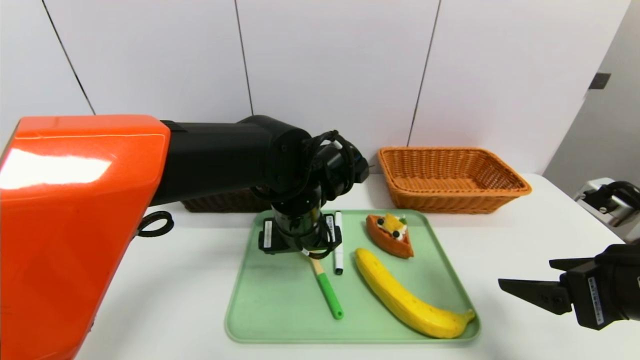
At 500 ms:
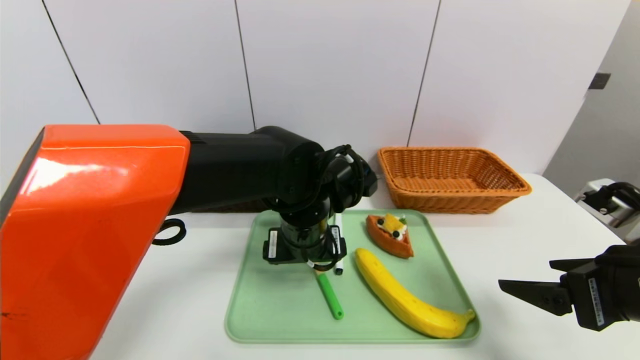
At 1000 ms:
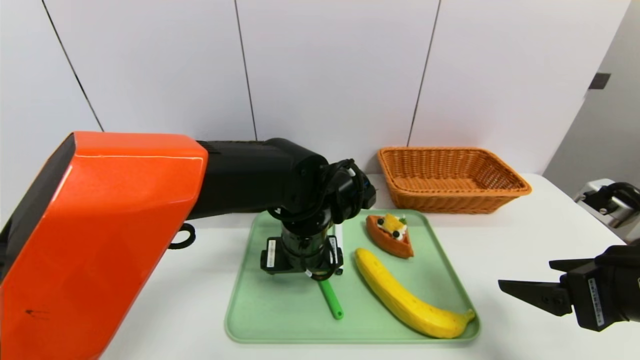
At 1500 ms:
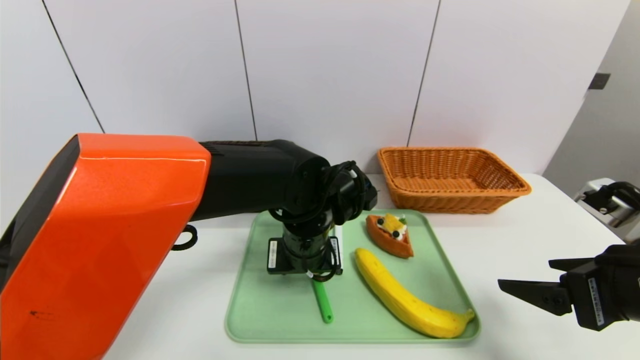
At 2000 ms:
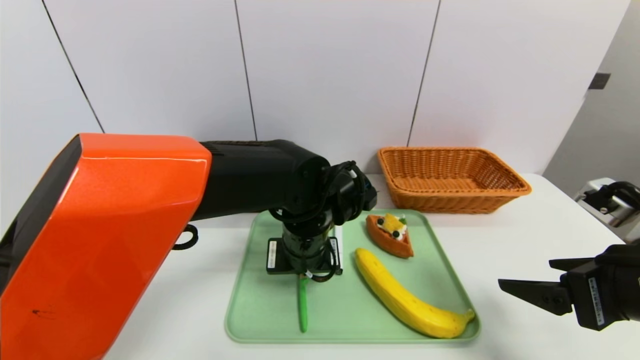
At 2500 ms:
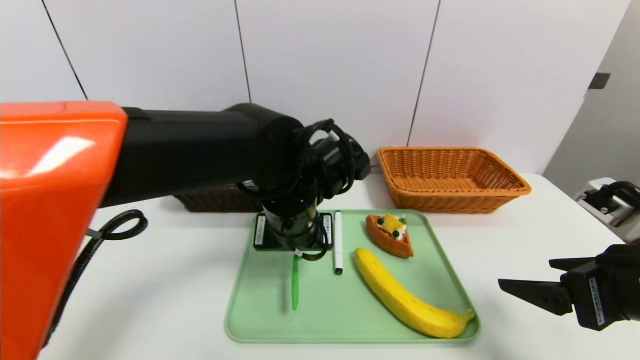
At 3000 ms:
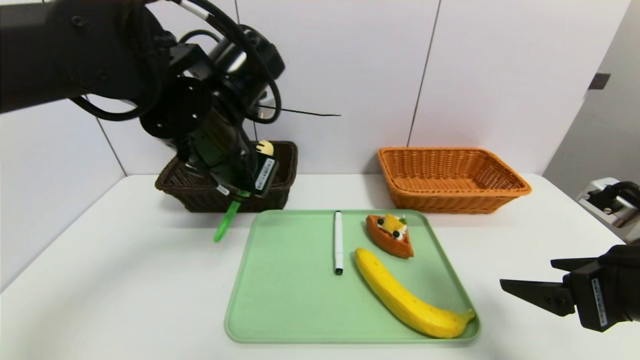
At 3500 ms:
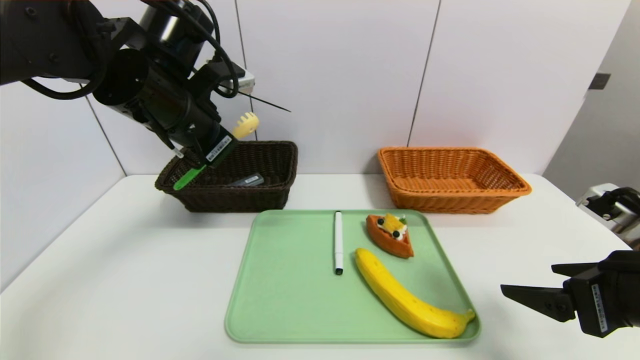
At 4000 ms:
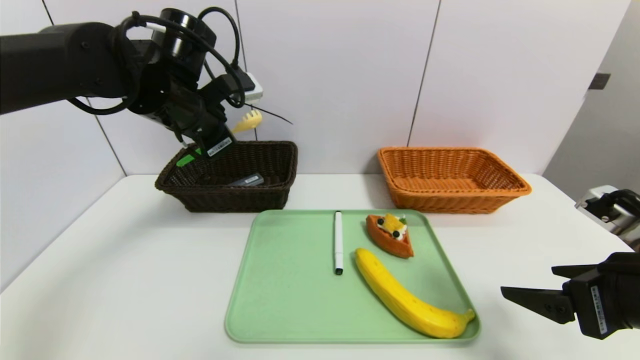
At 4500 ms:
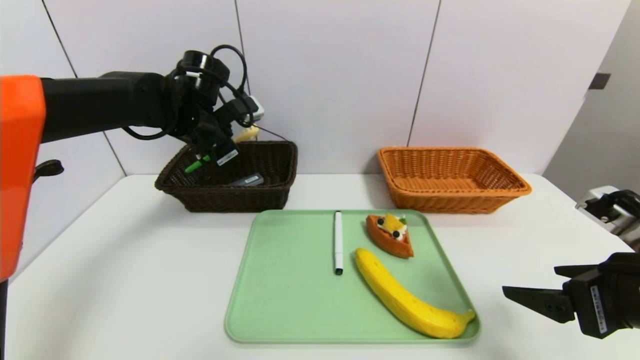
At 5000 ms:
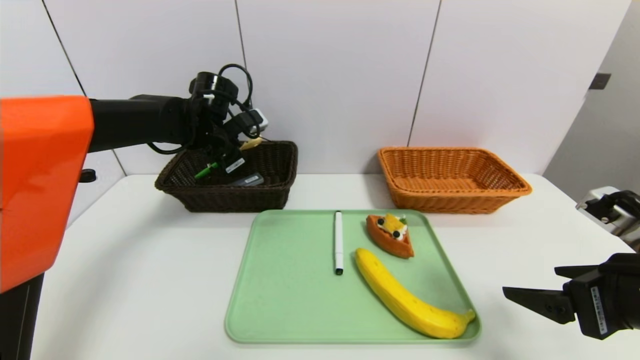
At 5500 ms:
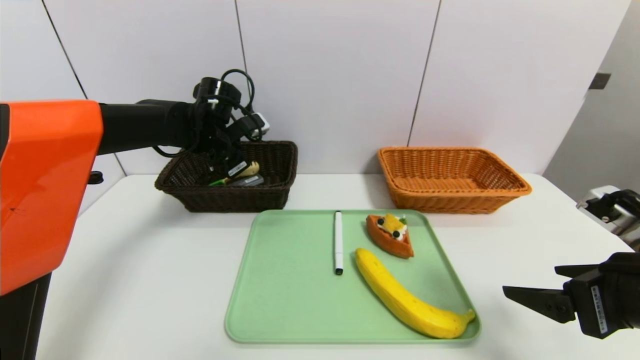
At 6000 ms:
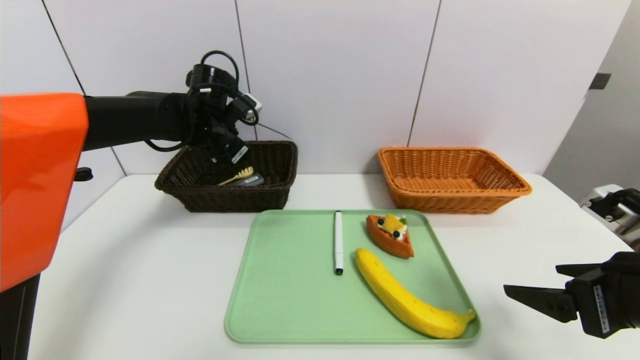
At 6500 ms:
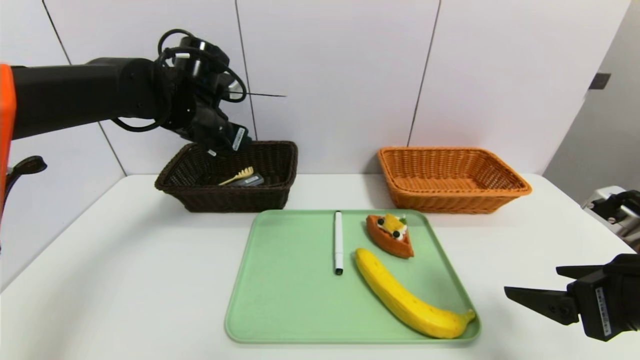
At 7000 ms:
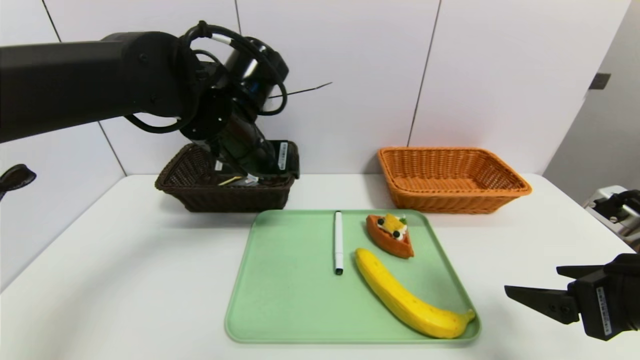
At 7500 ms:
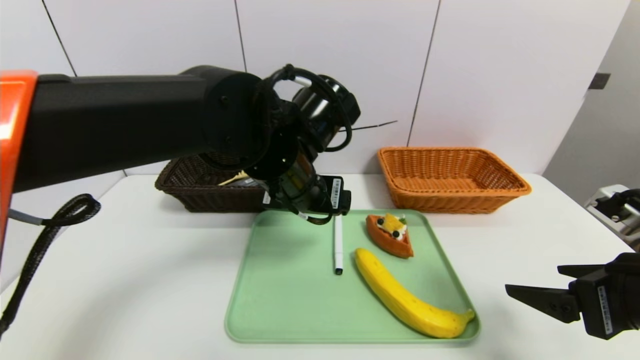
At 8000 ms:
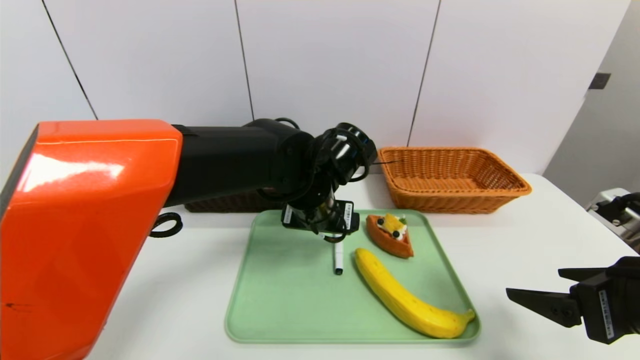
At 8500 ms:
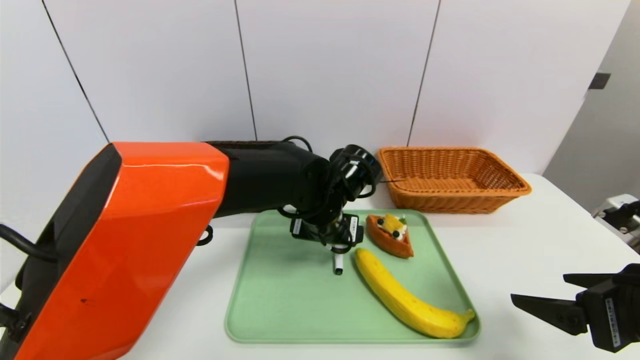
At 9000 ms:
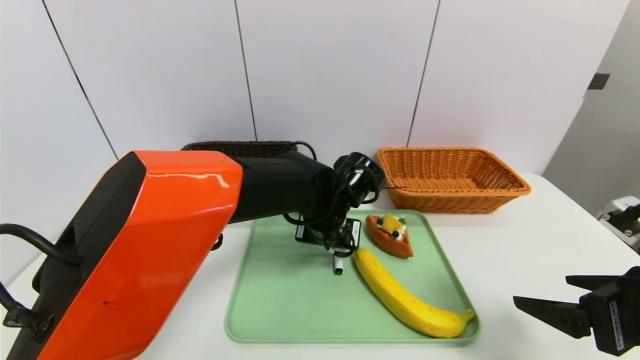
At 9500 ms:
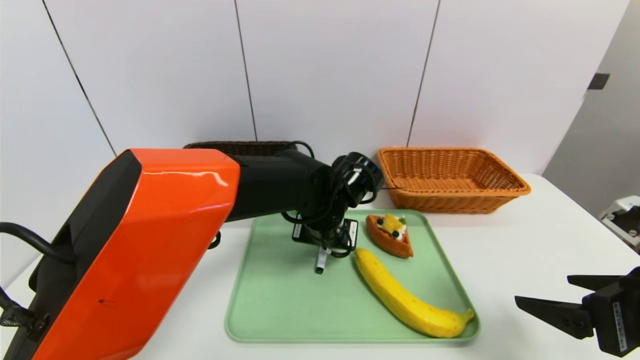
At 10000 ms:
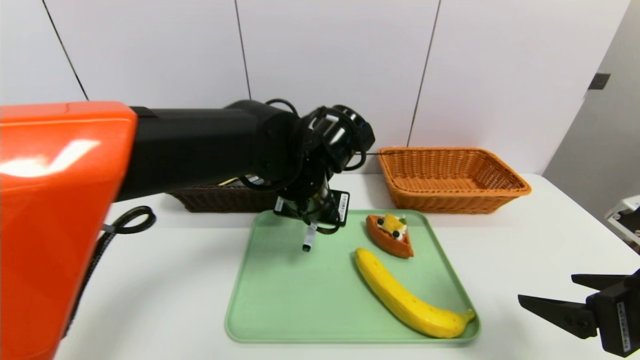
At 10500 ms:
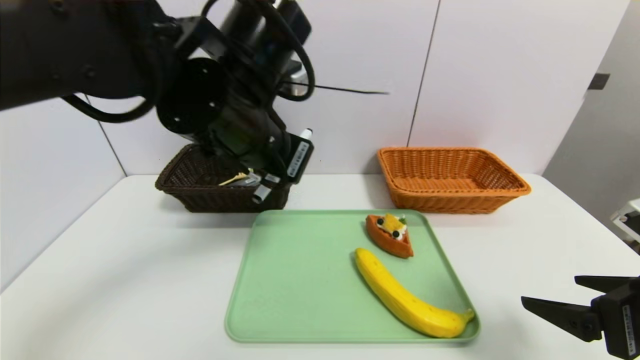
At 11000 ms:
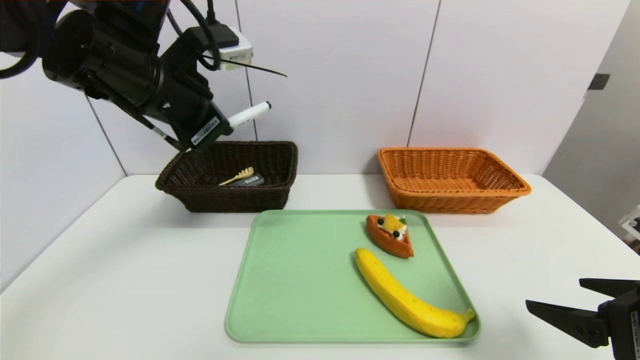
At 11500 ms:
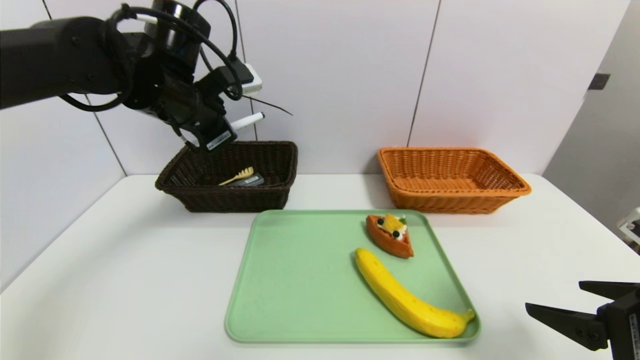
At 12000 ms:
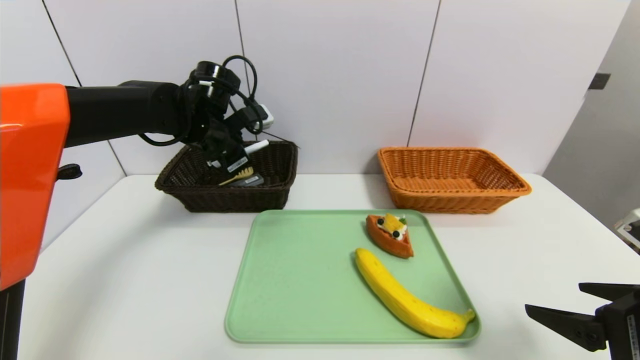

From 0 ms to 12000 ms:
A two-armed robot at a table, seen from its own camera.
Task of the whole recording: place the food in the right basket with the right gripper, and place the non food items in the left basket with the left gripper.
Step, from 0 ms to 6000 ms: Grasp the back scratcher and put it in the left basket.
From 0 ms to 2000 ms: The left gripper closes up.
From 2000 ms to 4000 ms: The left gripper heads to the left, upward and forward, covering some 25 cm.
From 4000 ms to 6000 ms: The left gripper goes some 10 cm forward and downward, and opens.
From 6000 ms to 8000 ms: The left gripper shifts roughly 20 cm to the right and backward.
From 8000 ms to 10000 ms: The left gripper closes its fingers.
From 10000 ms to 12000 ms: The left gripper shifts about 20 cm to the left and forward.

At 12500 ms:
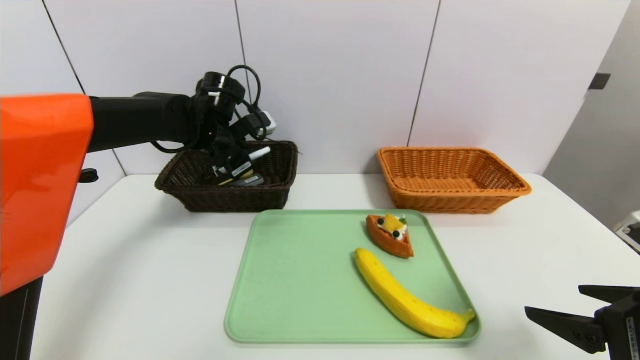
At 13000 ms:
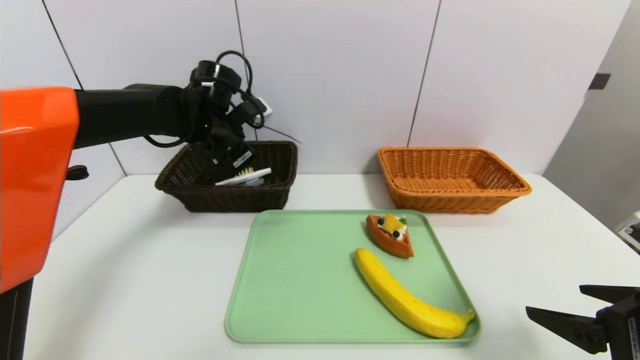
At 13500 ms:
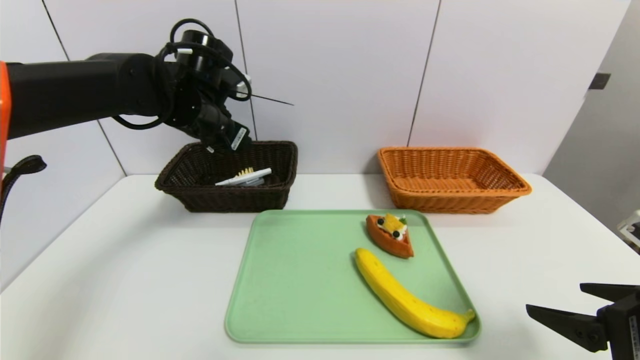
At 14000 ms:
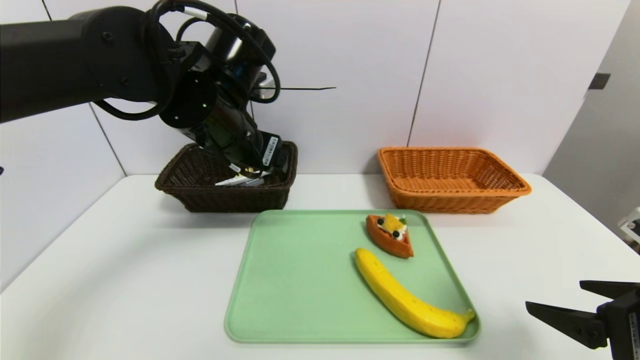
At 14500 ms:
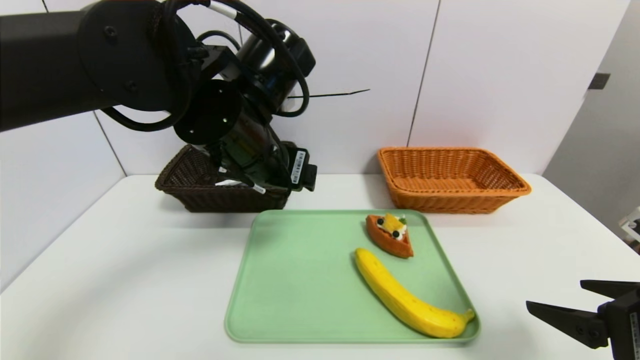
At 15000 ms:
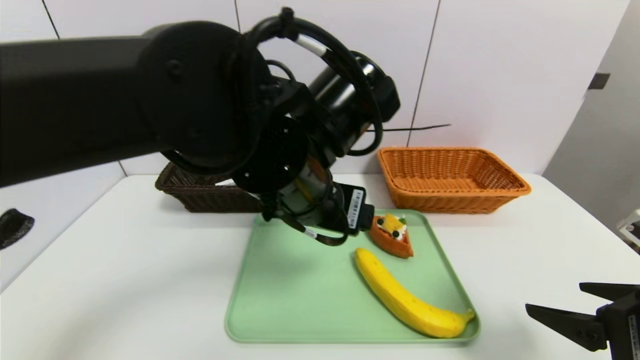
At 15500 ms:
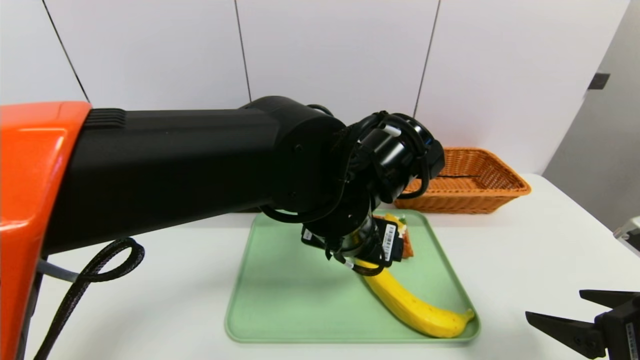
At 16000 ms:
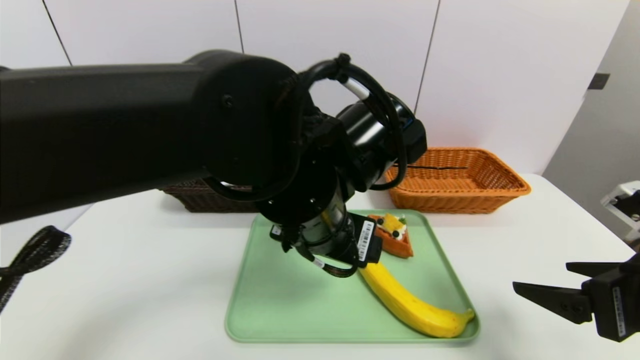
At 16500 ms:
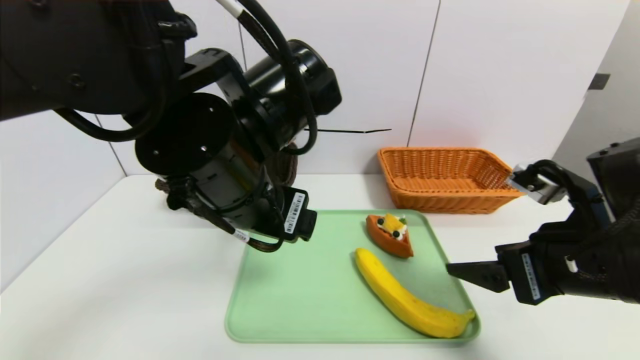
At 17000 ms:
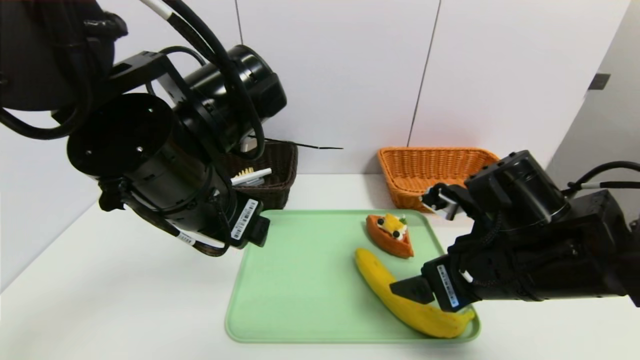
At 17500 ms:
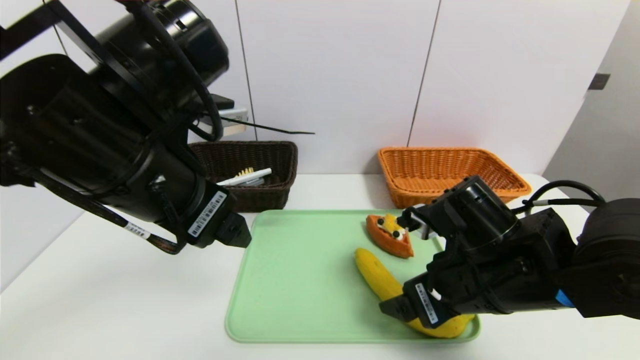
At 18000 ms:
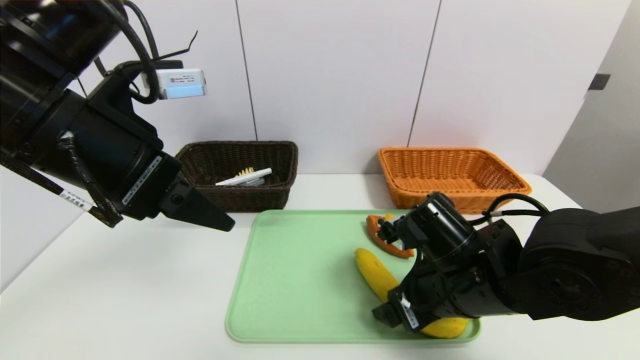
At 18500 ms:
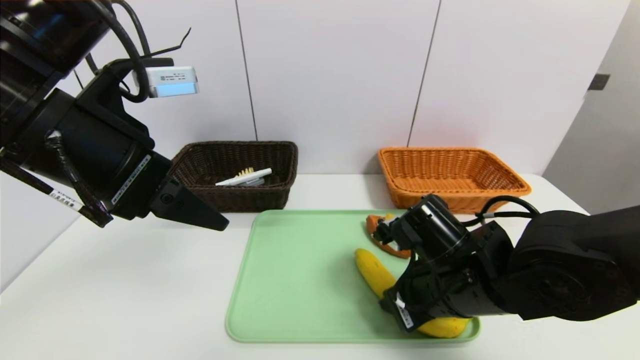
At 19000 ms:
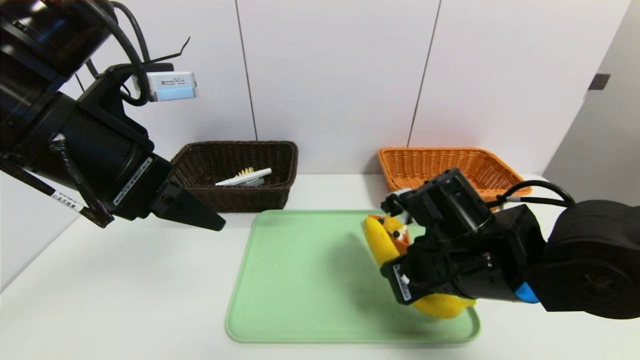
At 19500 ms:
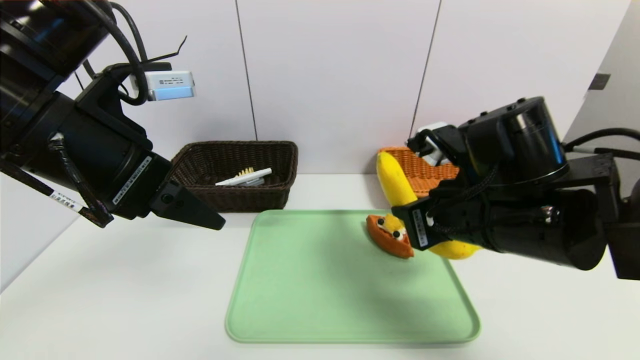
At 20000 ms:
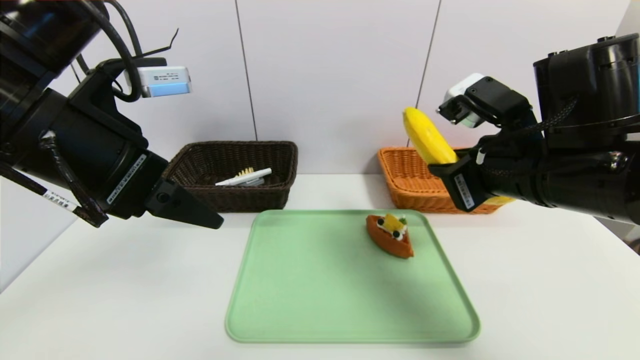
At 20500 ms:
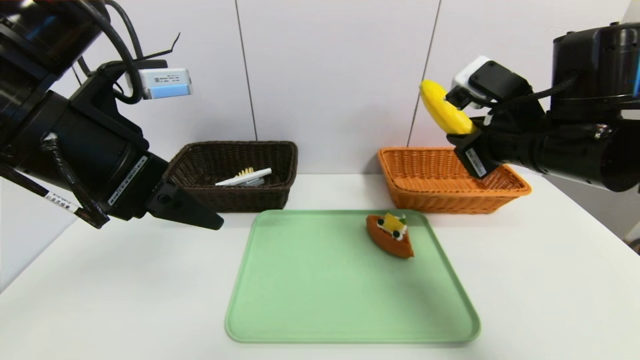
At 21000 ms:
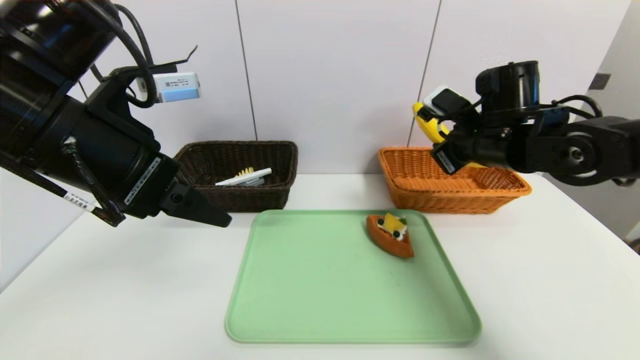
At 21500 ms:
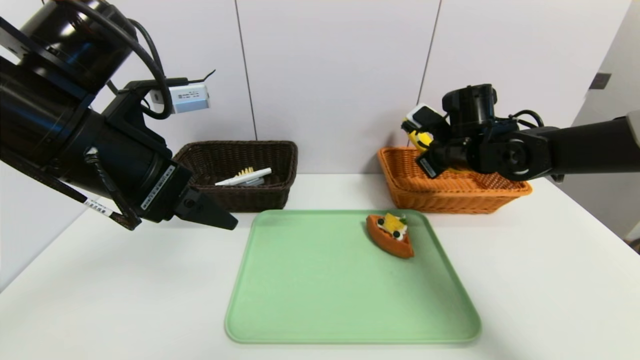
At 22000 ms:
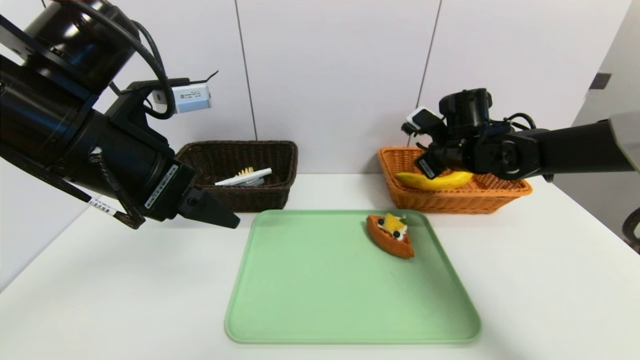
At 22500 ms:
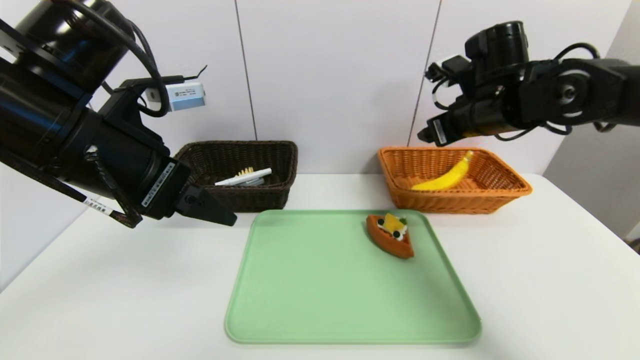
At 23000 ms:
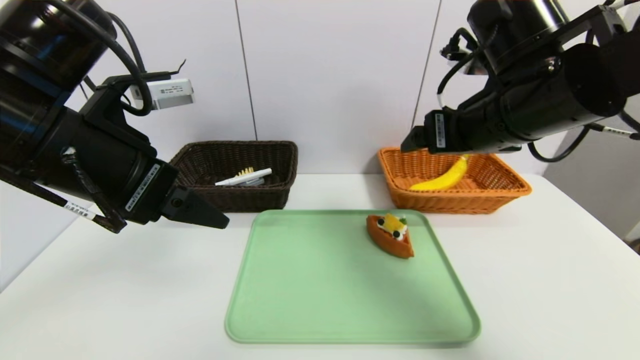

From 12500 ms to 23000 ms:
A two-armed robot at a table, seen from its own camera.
Task of the whole recording: place the food in the right basket with the right gripper, and place the non food items in the left basket with the left gripper.
Step, from 13500 ms to 22000 ms: Grasp the banana and put it in the right basket.
From 12500 ms to 14500 ms: The left gripper travels backward, to the right and upward by roughly 20 cm, and opens up.
From 14500 ms to 16500 ms: The left gripper is displaced backward by some 5 cm, and goes to the right and returns, roughly 10 cm each way, while the right gripper travels forward and to the left by roughly 10 cm.
From 16500 ms to 19000 ms: The right gripper travels to the left and downward by approximately 10 cm, and closes. Meanwhile the left gripper is displaced to the left by roughly 15 cm.
From 19000 ms to 21000 ms: The right gripper travels forward, to the right and upward by some 15 cm.
From 21000 ms to 23000 ms: The right gripper moves backward and upward, approximately 10 cm, and opens its fingers.
